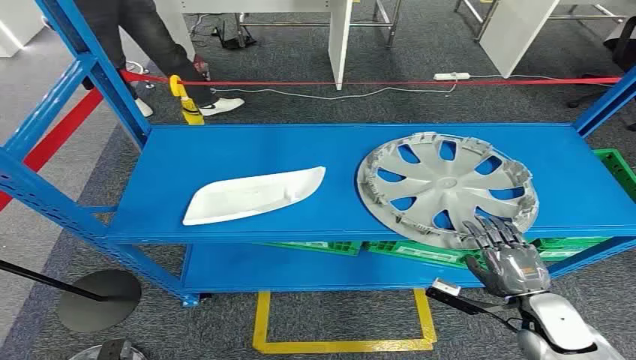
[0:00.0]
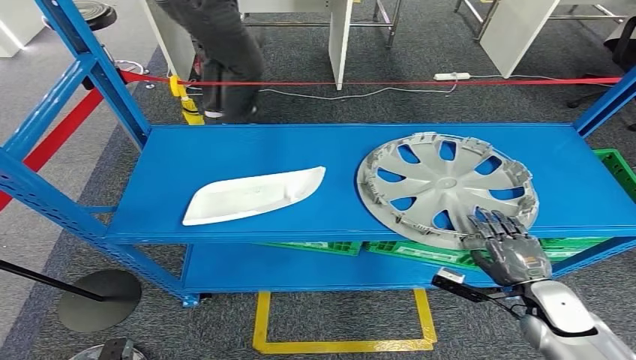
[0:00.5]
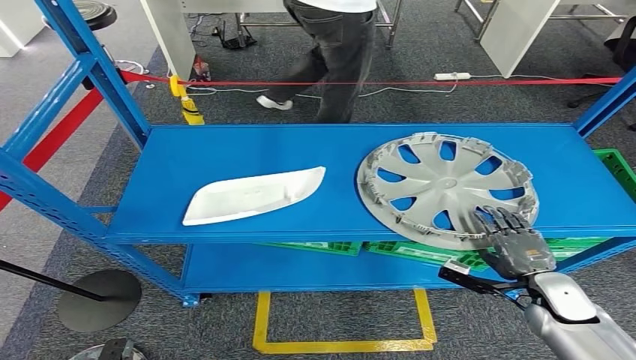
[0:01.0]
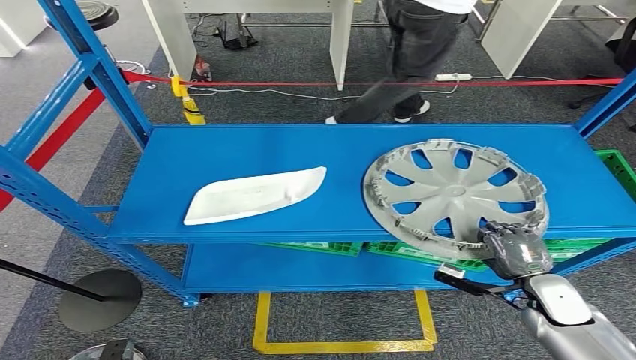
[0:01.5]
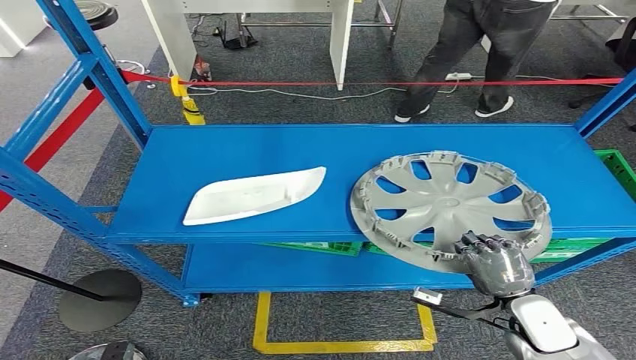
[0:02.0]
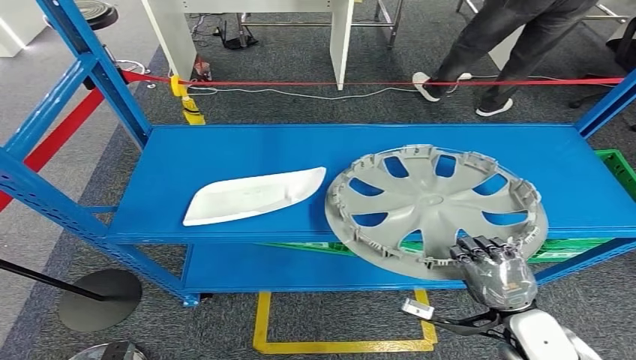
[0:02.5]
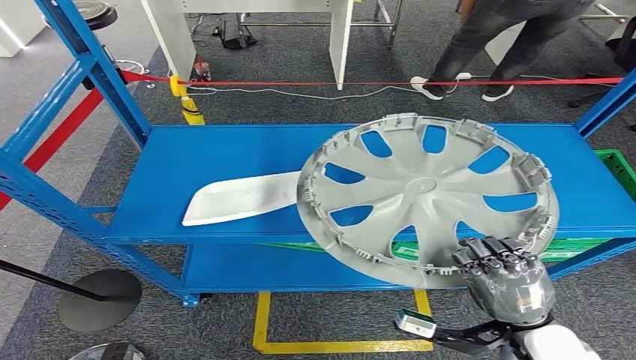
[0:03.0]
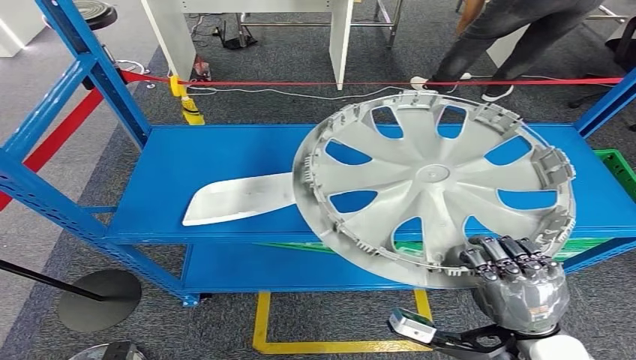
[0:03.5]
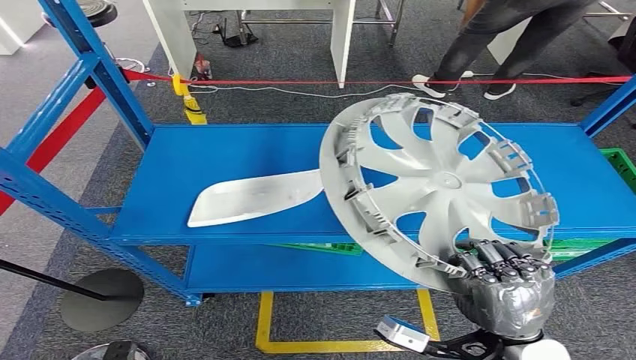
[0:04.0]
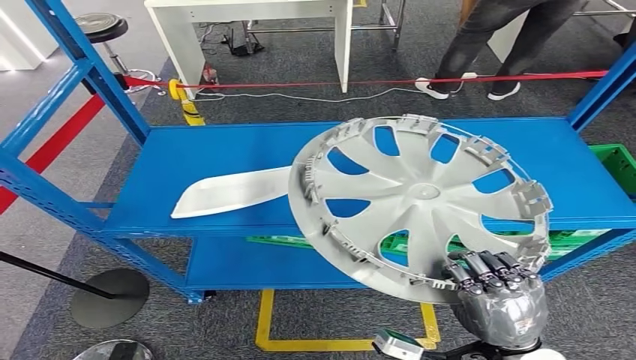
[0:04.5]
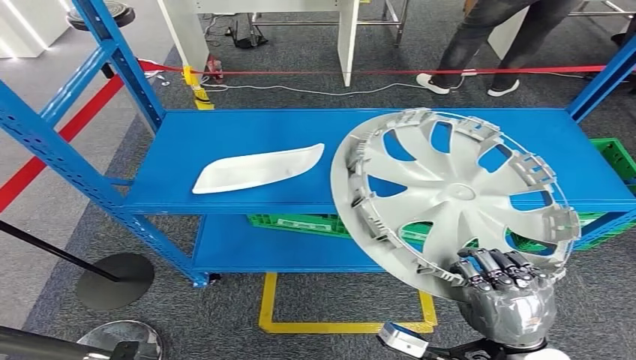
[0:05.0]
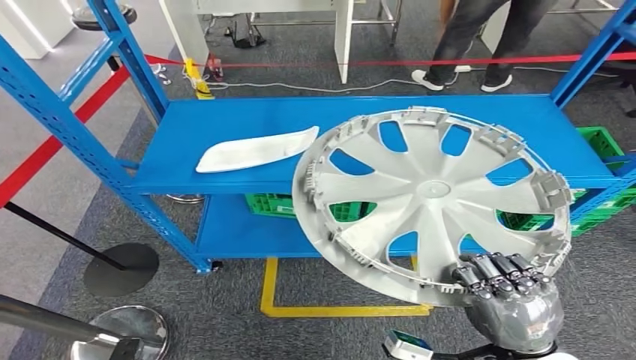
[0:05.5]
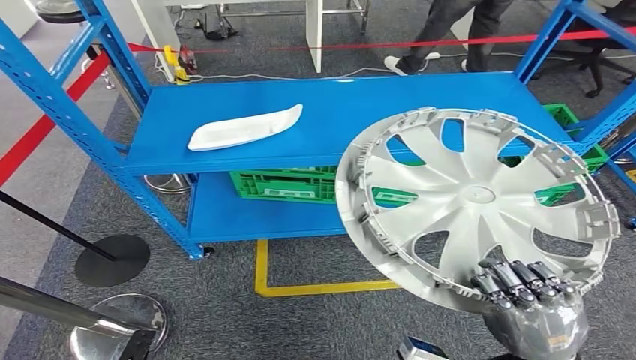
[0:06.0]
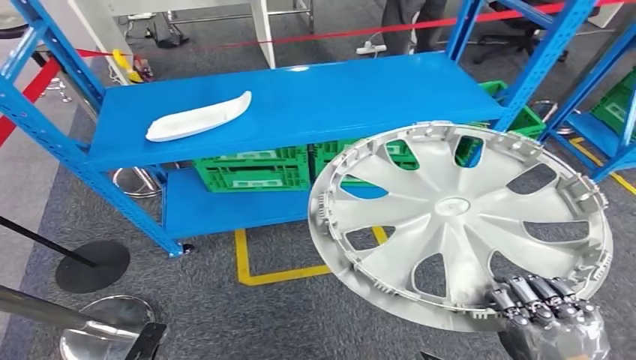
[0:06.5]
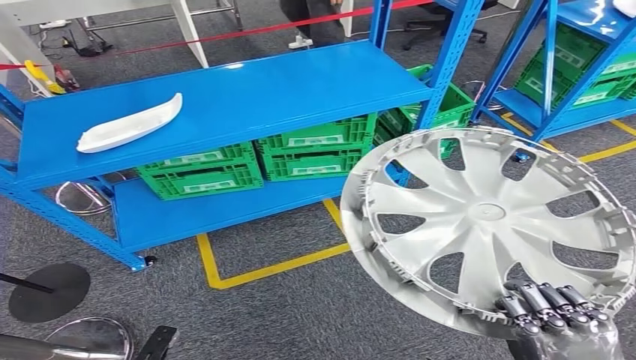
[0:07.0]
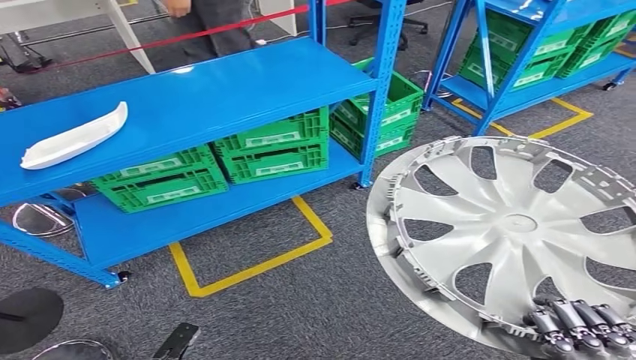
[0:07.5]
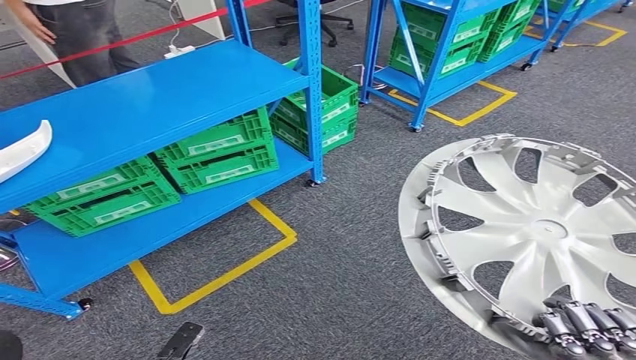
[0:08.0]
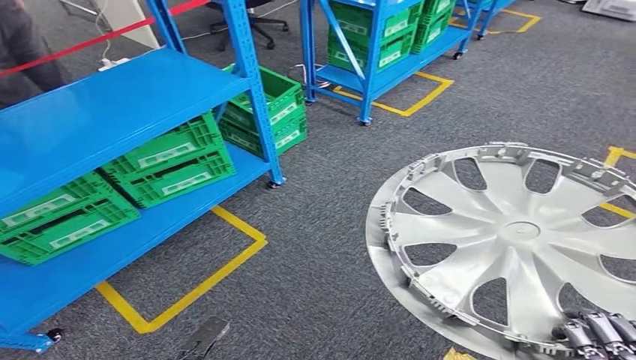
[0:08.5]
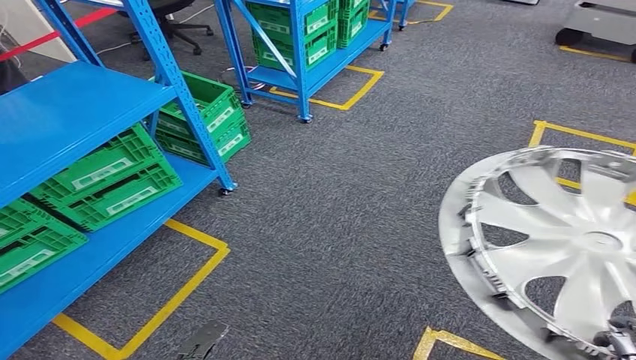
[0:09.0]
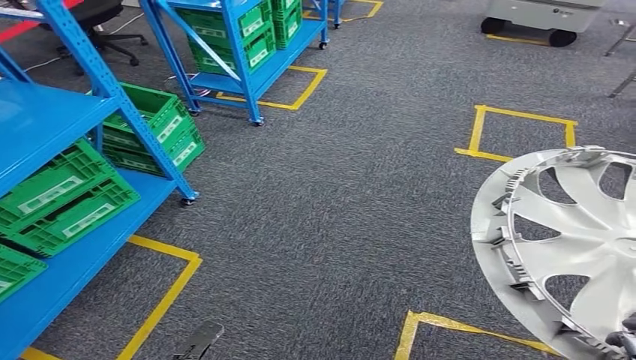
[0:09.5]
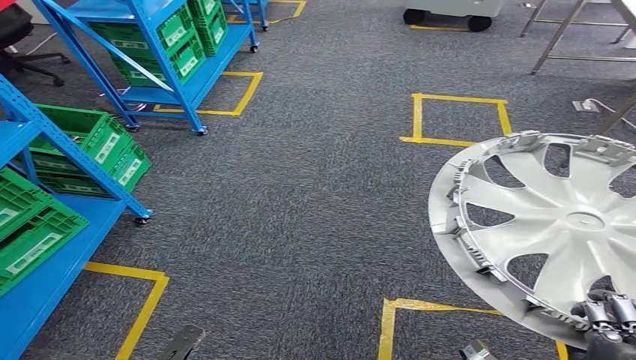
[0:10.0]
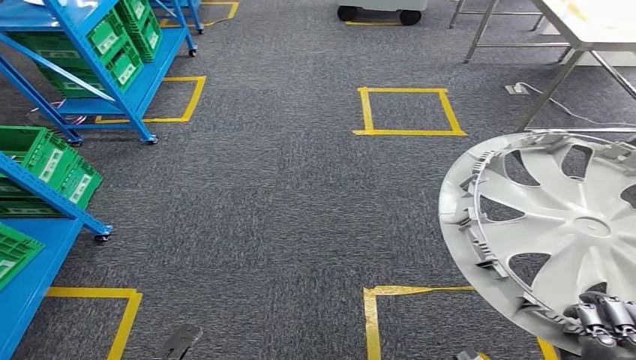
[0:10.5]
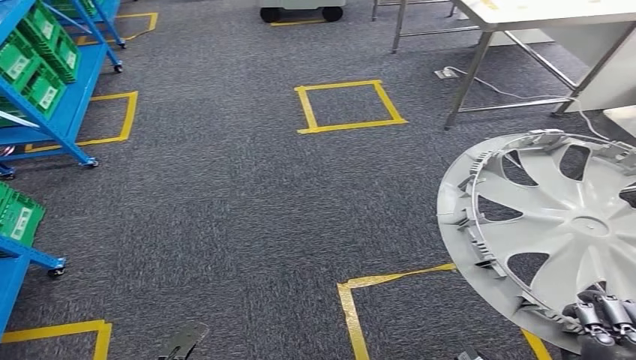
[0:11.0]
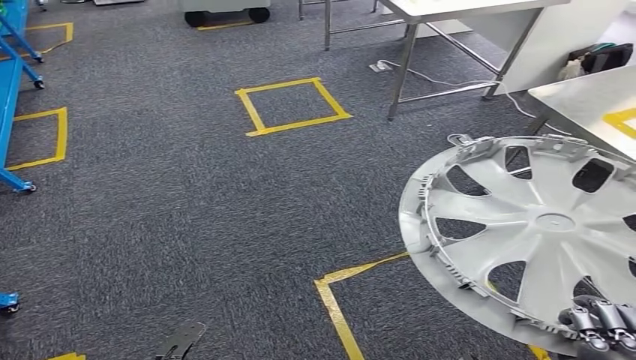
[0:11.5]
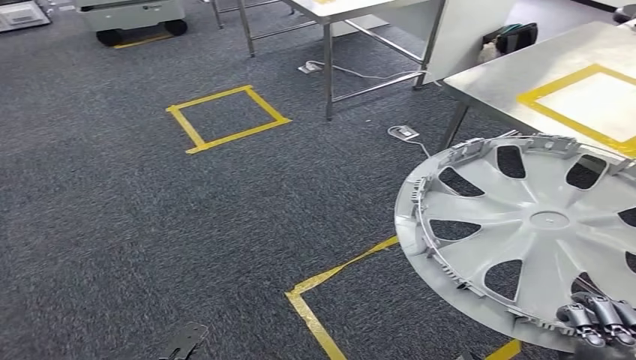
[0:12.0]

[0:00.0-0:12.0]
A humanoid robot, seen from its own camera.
Step, 0:00.0 to 0:06.5: Pick up the small component from the shelf.

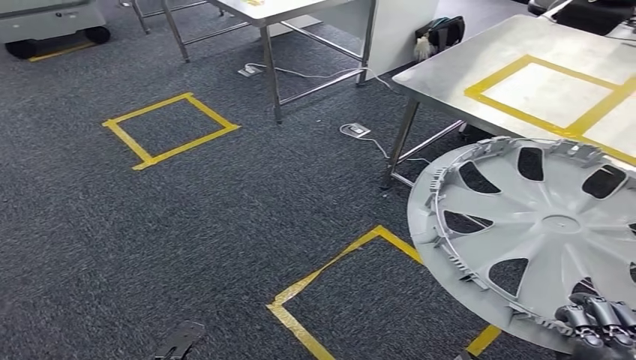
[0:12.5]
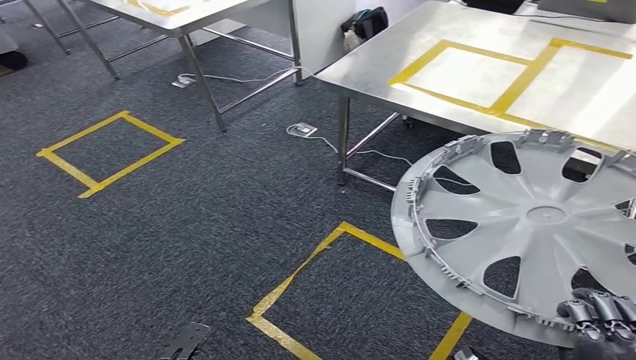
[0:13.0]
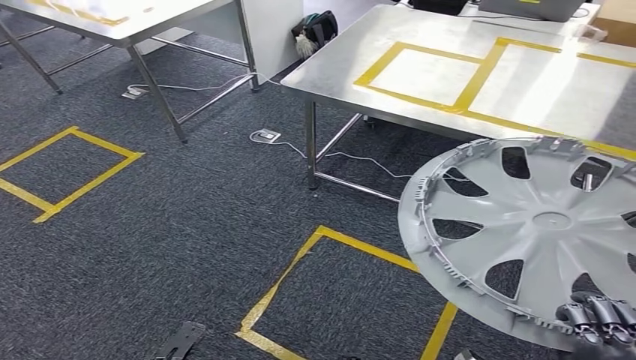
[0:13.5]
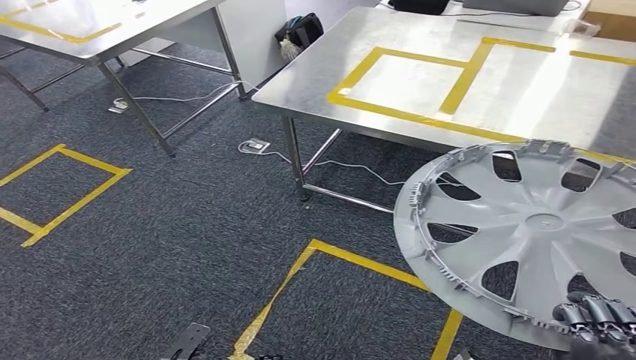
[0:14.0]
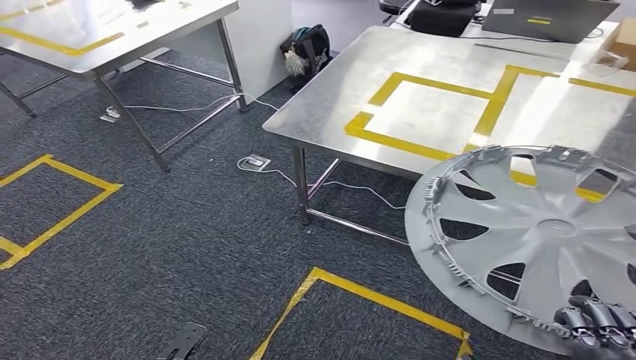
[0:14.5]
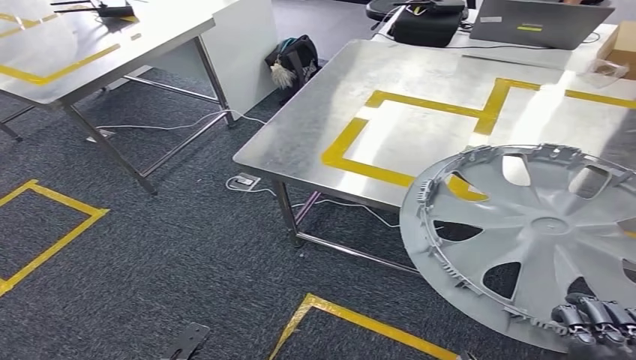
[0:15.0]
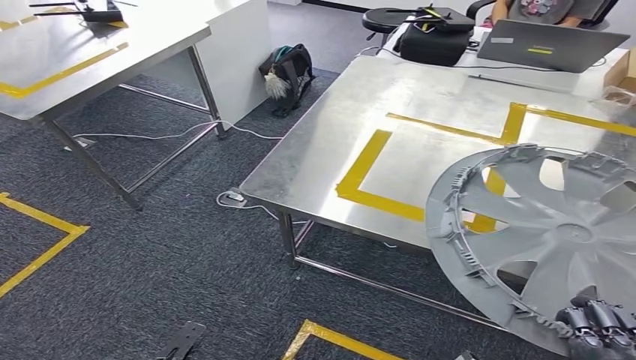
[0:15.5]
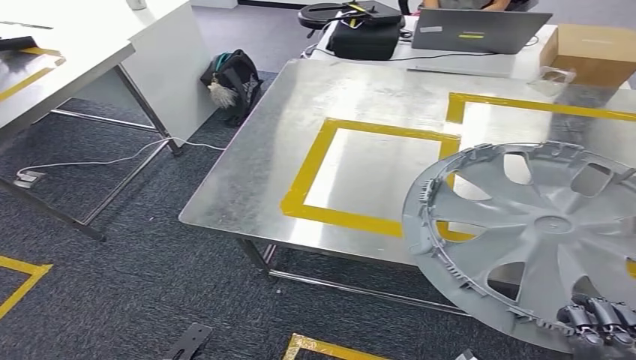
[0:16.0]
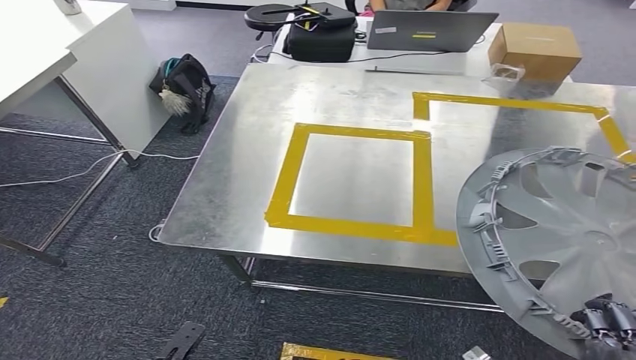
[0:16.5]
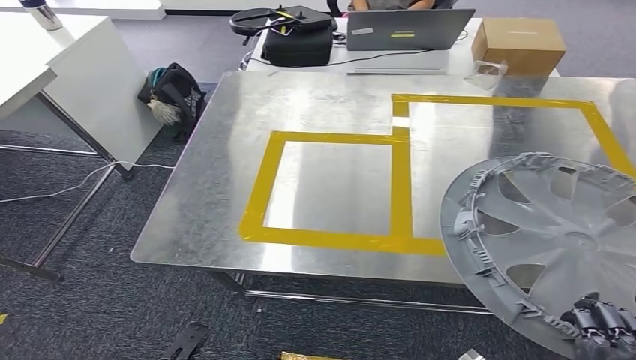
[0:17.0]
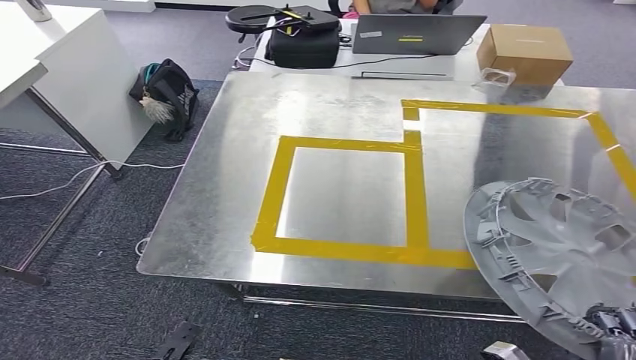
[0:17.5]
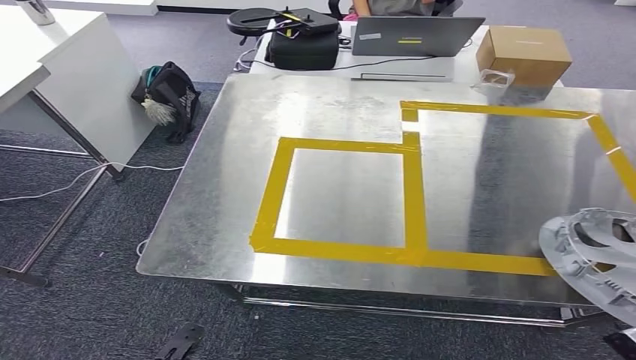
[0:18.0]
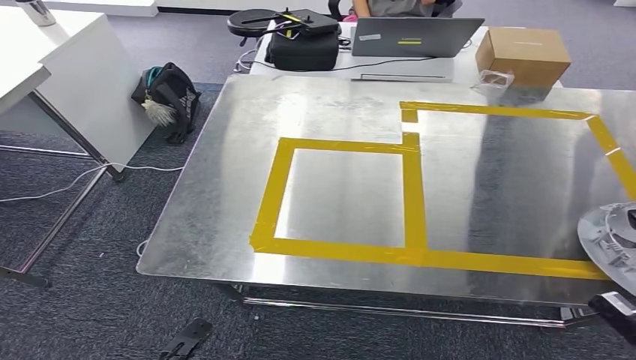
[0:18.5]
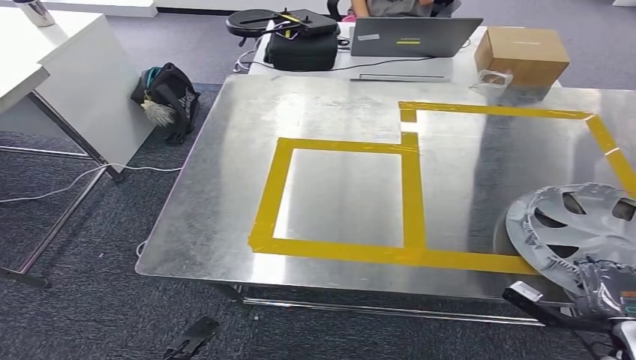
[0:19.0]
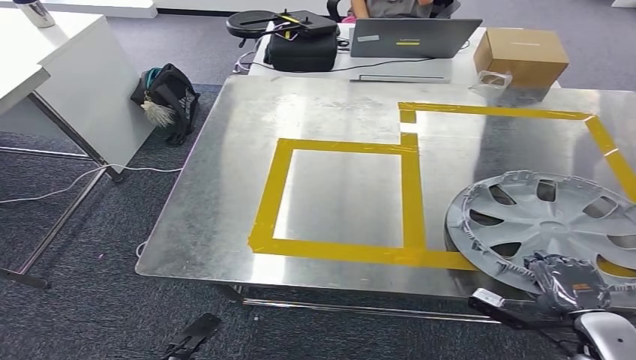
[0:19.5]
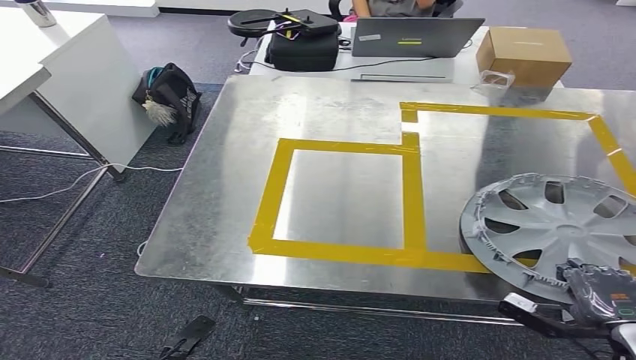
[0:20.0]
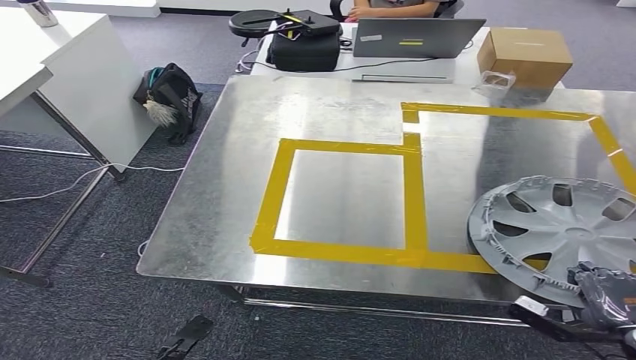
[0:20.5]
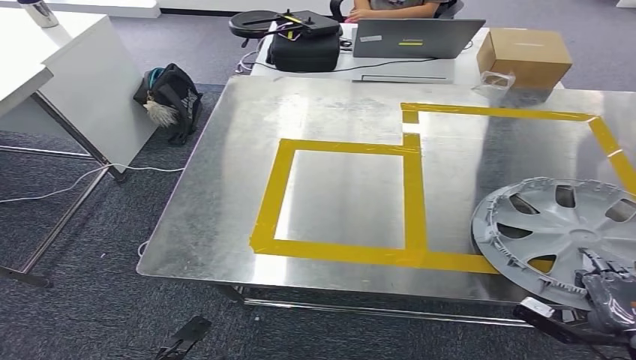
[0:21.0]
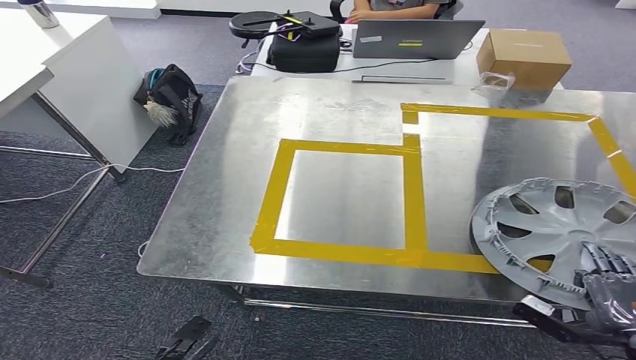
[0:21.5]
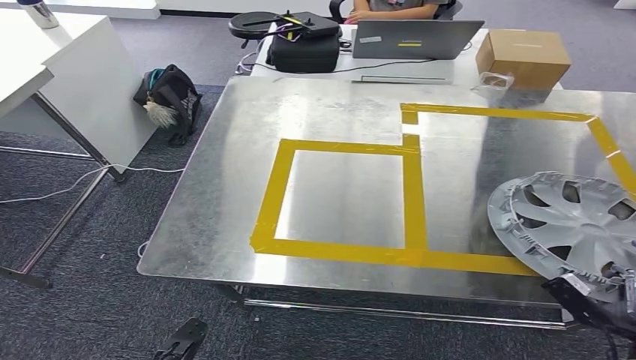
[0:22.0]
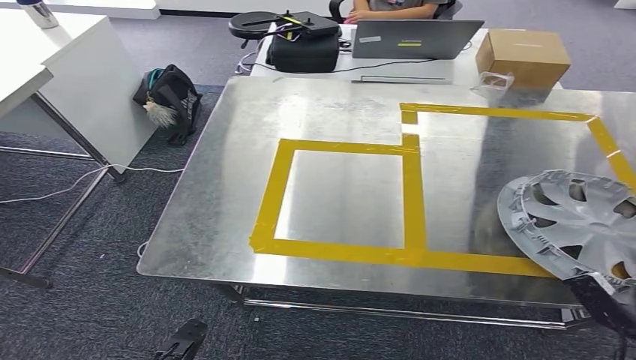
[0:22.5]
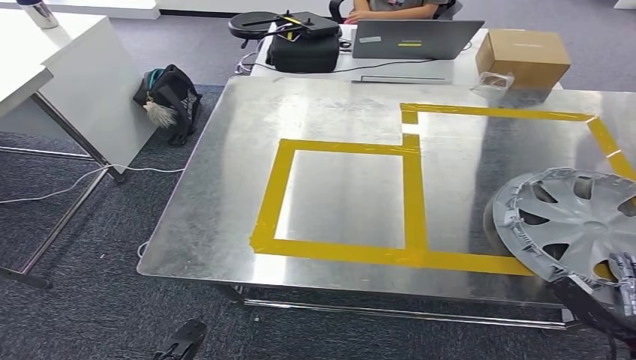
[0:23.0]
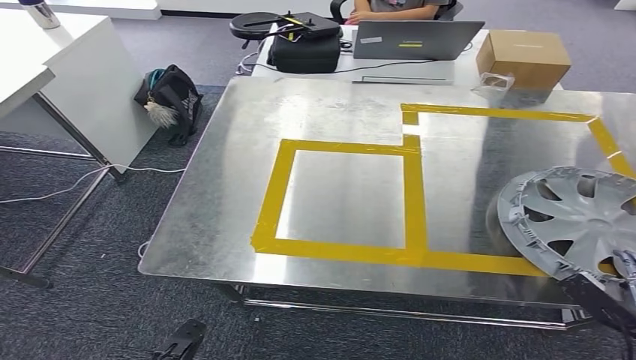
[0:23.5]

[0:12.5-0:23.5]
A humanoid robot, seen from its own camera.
Step, 0:12.5 to 0:16.5: Move the small component to the workbench.
0:18.0 to 0:20.0: The right hand heads forward and downward, covering some 10 cm.
0:20.0 to 0:21.5: The hands make only small movements.
